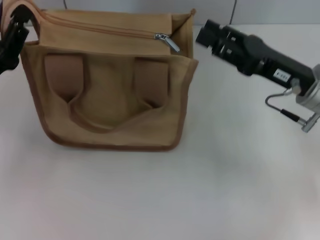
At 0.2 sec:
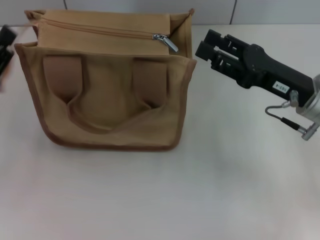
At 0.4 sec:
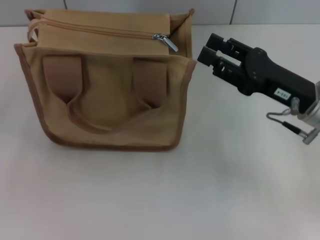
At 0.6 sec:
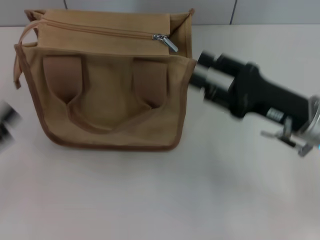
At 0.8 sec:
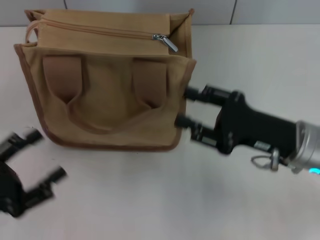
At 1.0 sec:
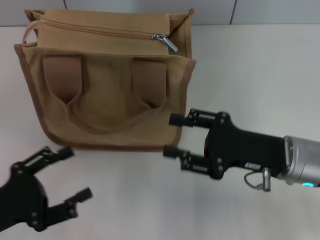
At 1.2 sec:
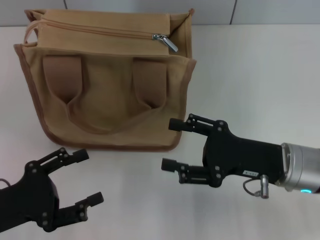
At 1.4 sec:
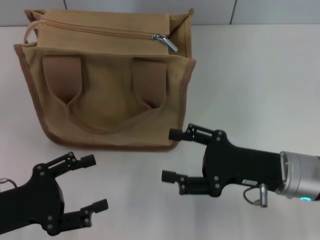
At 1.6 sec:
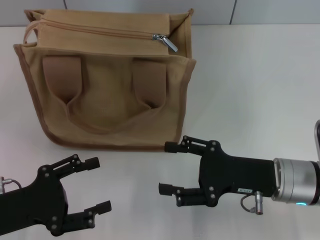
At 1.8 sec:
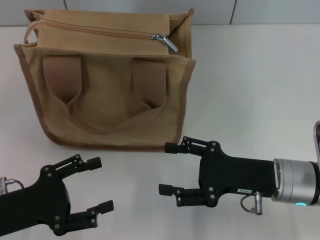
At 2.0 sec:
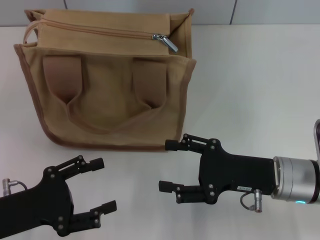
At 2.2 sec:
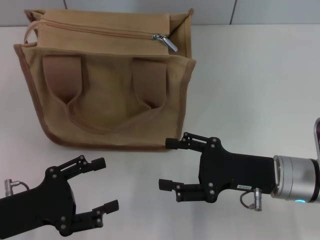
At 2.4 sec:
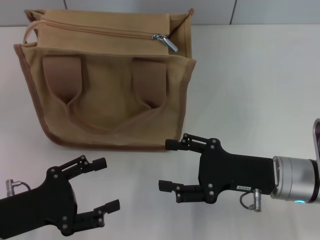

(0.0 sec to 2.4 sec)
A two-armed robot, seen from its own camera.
0.0 sec - 1.2 sec: The right gripper heads backward and downward, covering approximately 10 cm. Meanwhile the left gripper travels backward by roughly 10 cm, and opens.
1.2 sec - 2.4 sec: The grippers stay close to where they were, moving slightly.
